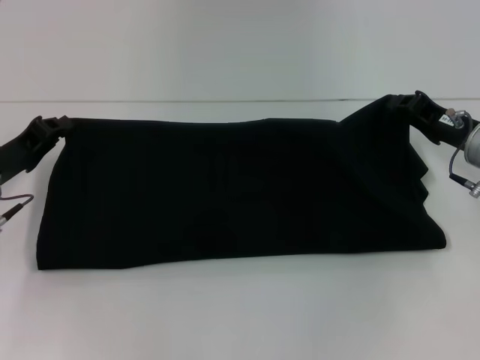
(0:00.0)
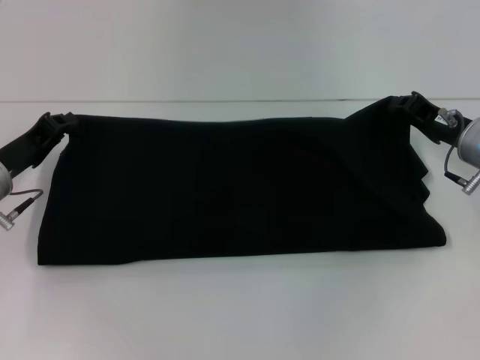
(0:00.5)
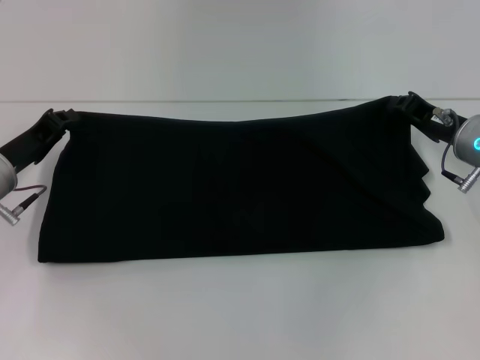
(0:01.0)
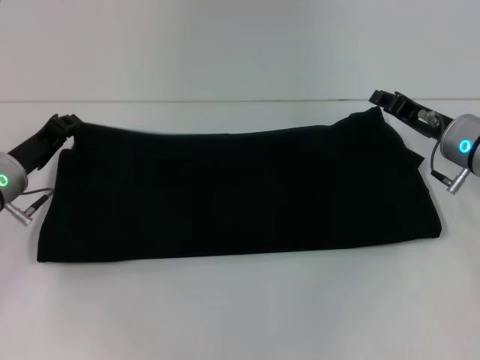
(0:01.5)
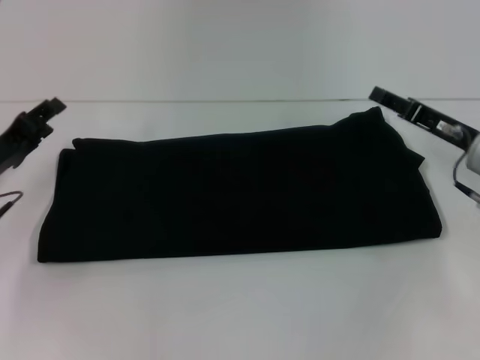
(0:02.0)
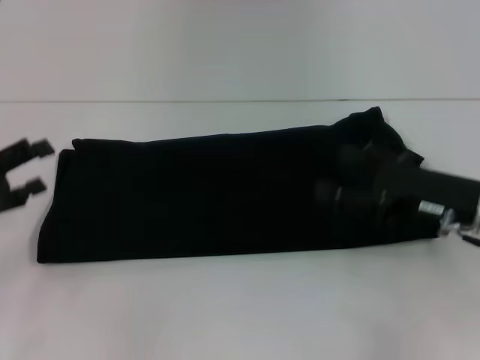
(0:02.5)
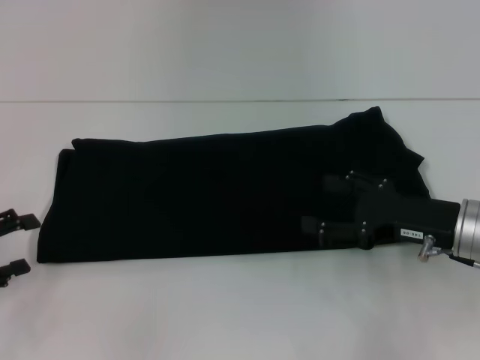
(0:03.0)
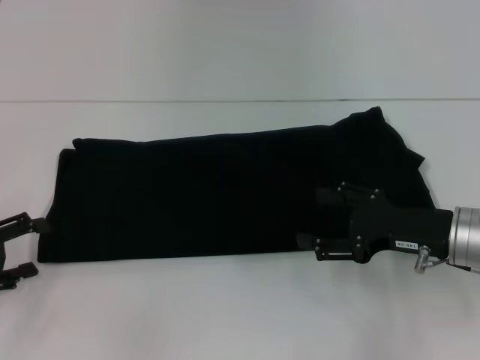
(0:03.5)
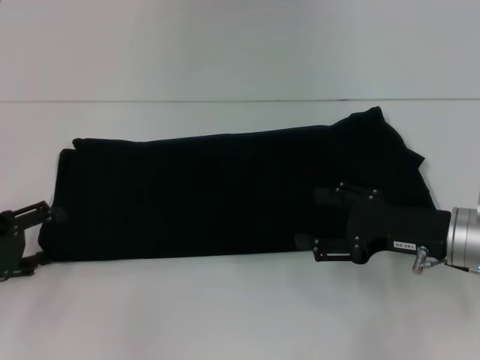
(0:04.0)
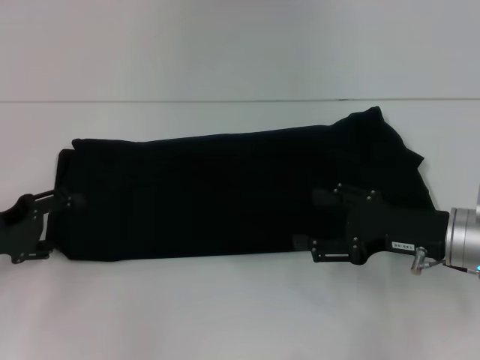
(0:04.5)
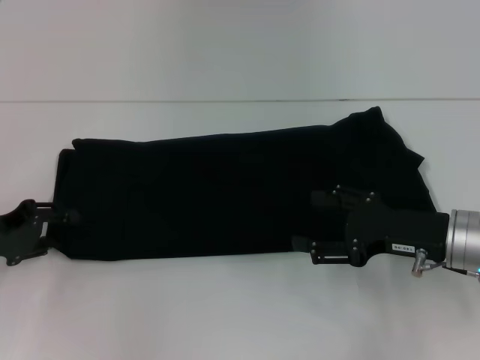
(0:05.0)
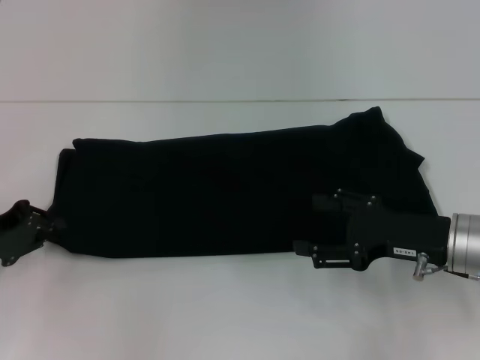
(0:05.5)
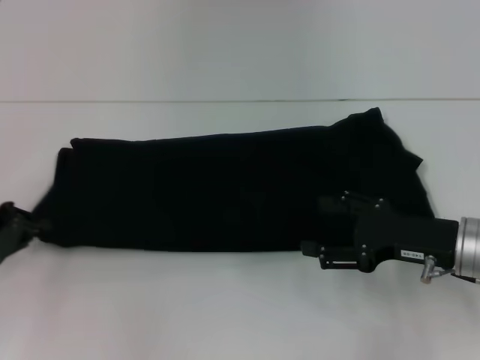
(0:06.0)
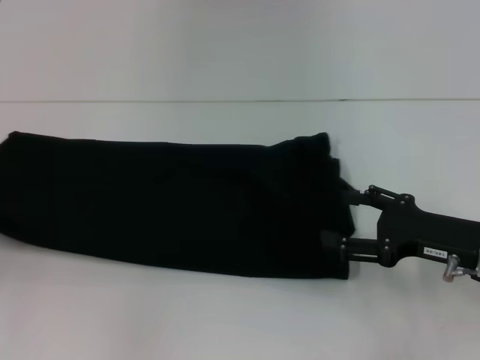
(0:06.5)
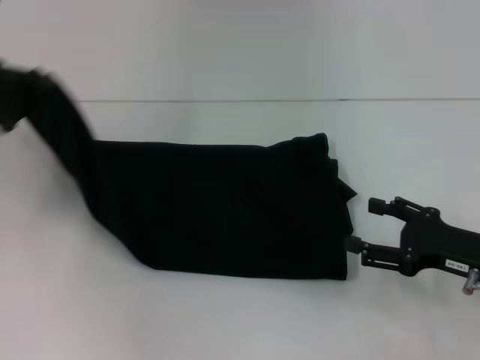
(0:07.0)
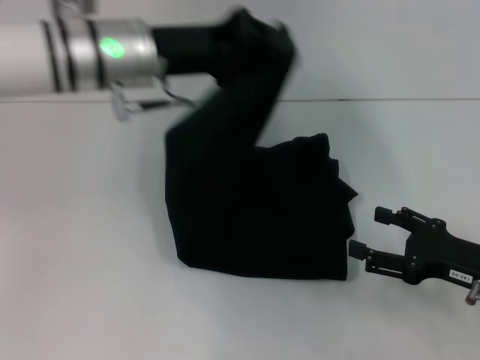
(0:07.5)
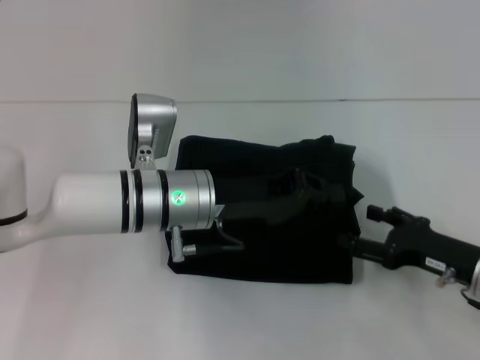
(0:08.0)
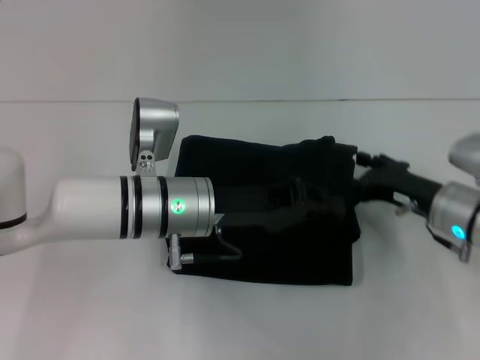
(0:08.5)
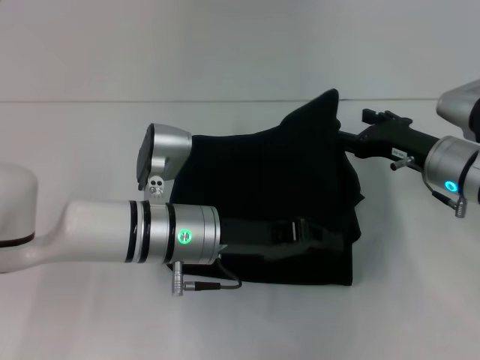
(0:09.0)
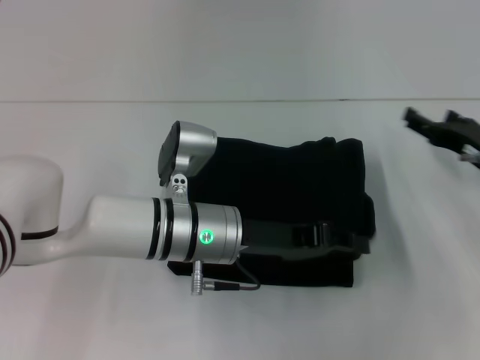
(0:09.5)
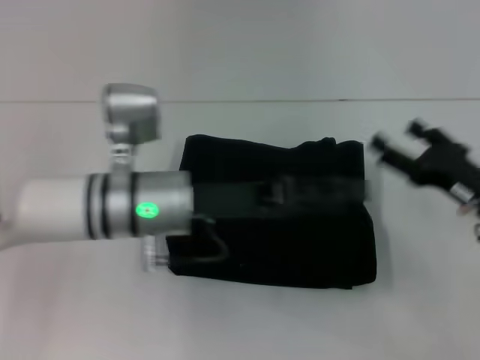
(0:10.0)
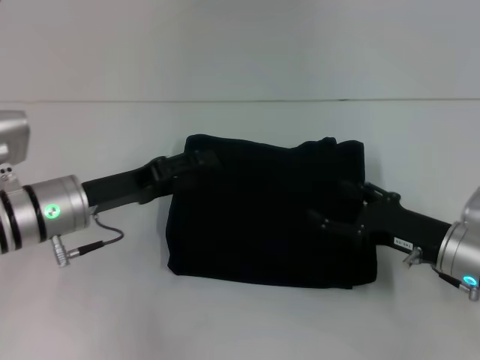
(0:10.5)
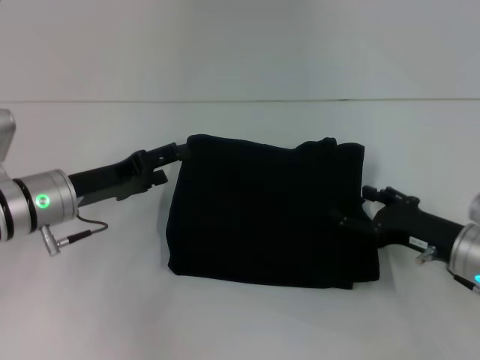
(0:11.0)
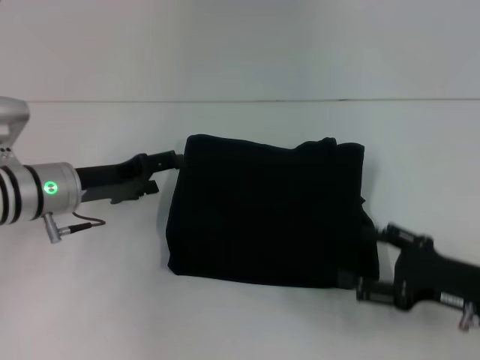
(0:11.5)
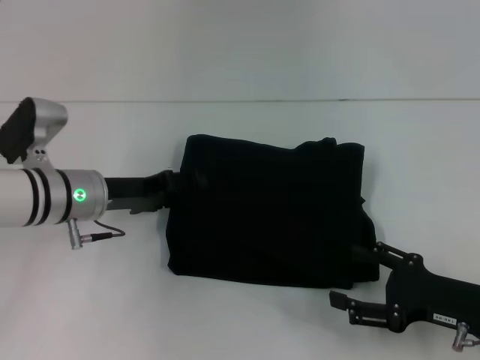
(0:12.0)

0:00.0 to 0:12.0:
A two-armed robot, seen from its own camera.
Step, 0:00.0 to 0:09.5: Fold the clothes with your left hand.
0:00.0 to 0:02.0: The right gripper opens. The left gripper opens its fingers.
0:02.0 to 0:04.0: Both grippers move backward, some 5 cm. The left gripper opens. The right gripper opens up.
0:04.0 to 0:06.0: The left gripper closes its fingers.
0:06.0 to 0:08.0: The left gripper travels to the right by approximately 25 cm. The right gripper shifts by approximately 5 cm.
0:08.0 to 0:10.0: The right gripper reaches about 10 cm forward, then returns. The left gripper opens its fingers.
0:10.0 to 0:12.0: The right gripper travels backward by roughly 5 cm; the left gripper goes about 10 cm to the left, and opens its fingers.

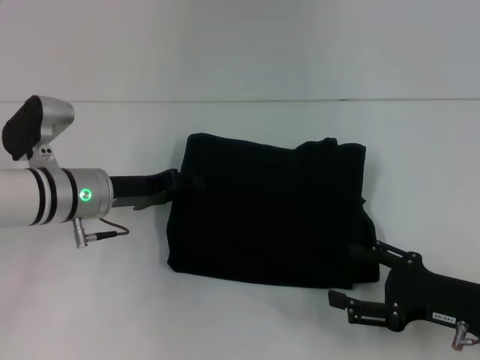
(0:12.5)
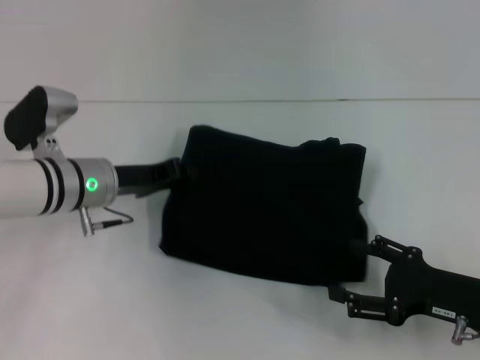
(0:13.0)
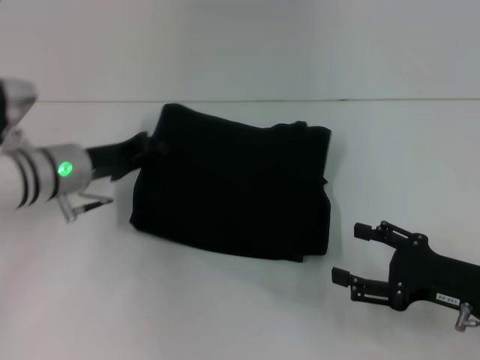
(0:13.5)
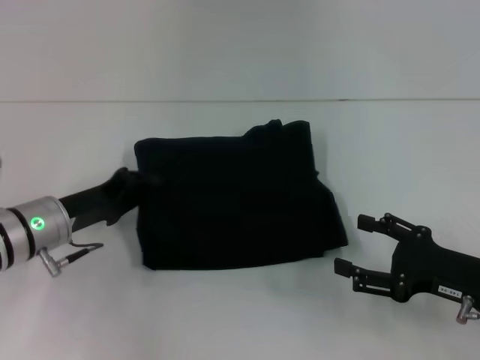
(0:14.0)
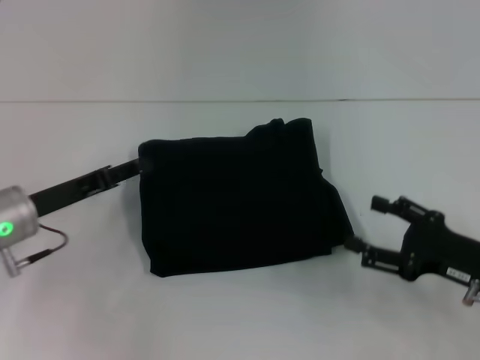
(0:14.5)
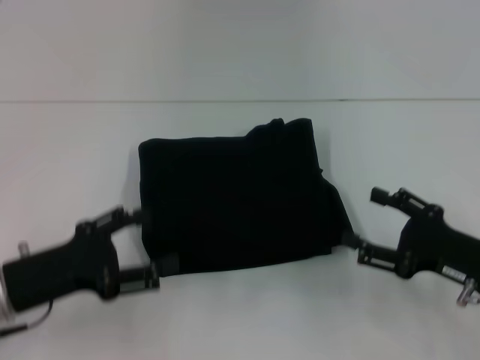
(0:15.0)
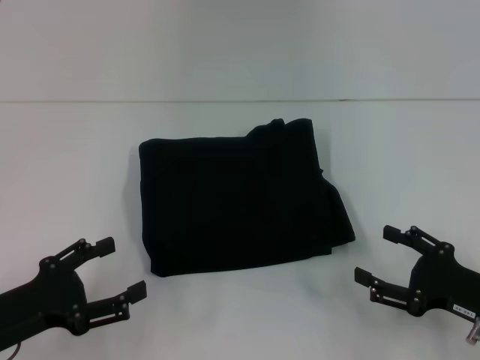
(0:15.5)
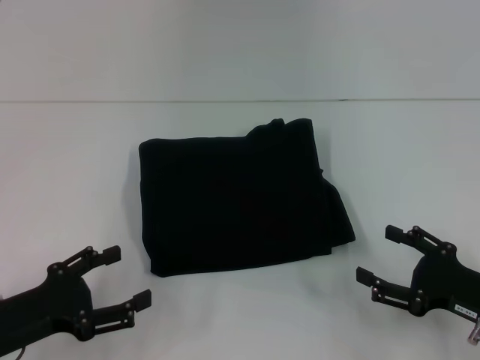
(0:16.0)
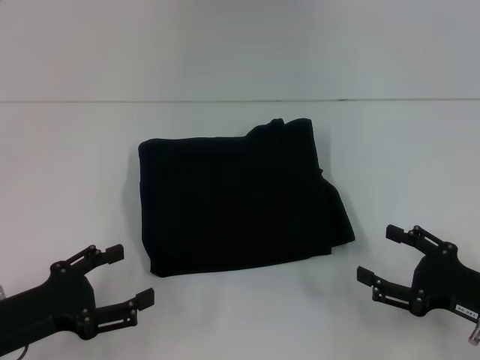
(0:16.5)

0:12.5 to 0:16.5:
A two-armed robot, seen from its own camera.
0:12.5 to 0:14.5: The left gripper shifts about 5 cm to the left.
0:14.5 to 0:16.5: The left gripper is displaced backward by about 10 cm, and opens.

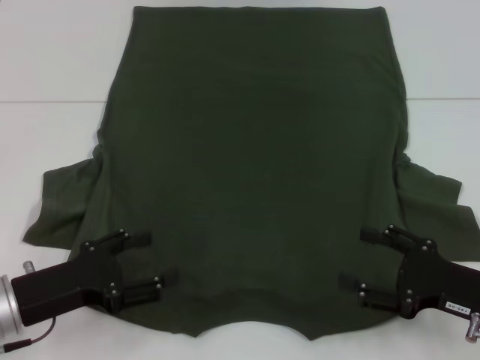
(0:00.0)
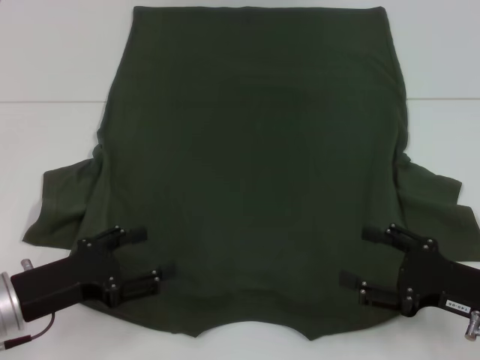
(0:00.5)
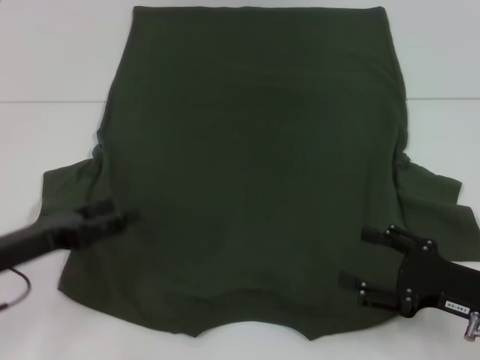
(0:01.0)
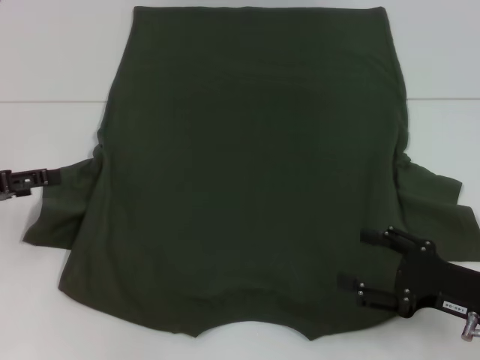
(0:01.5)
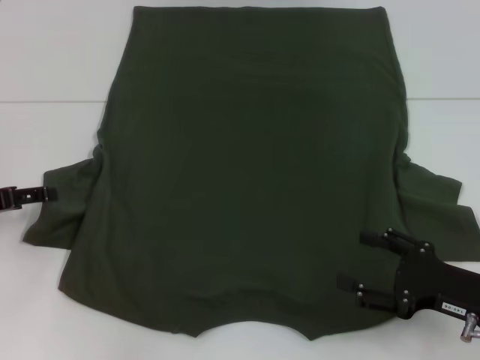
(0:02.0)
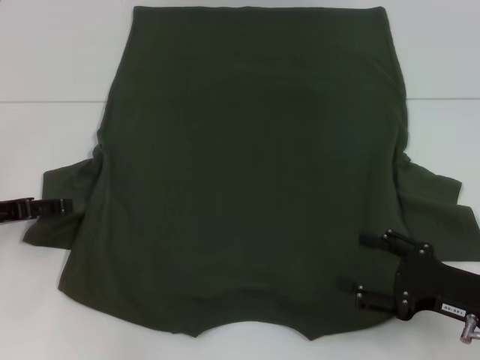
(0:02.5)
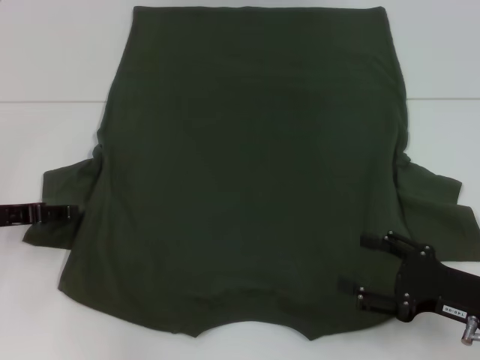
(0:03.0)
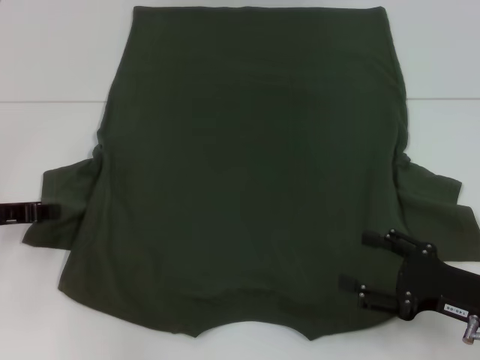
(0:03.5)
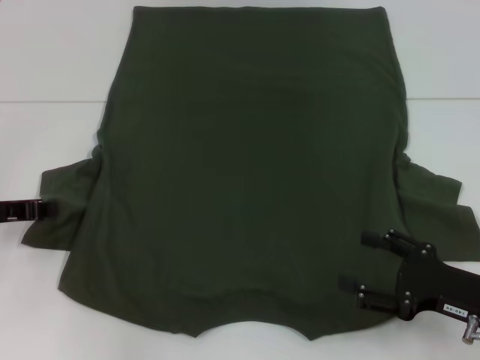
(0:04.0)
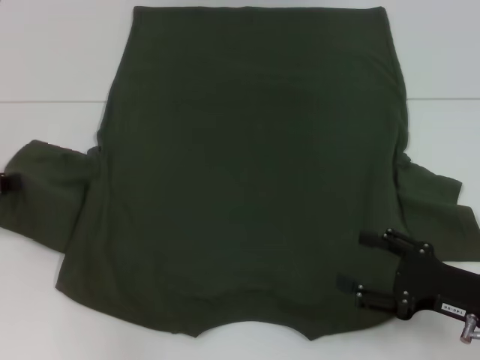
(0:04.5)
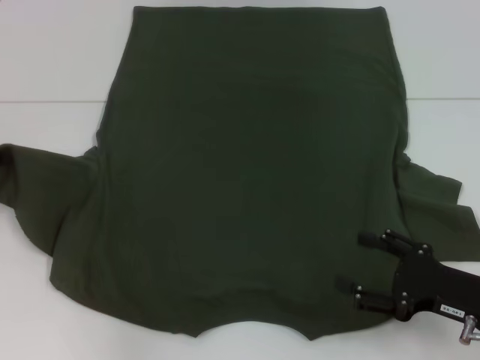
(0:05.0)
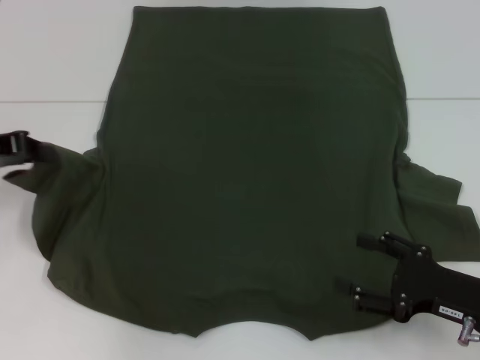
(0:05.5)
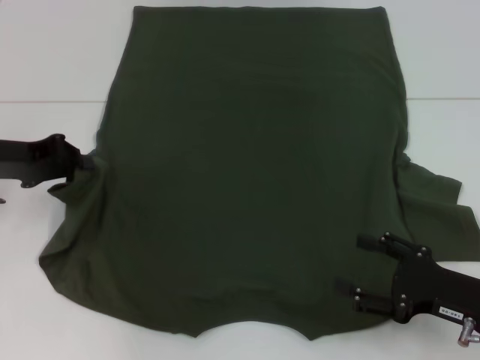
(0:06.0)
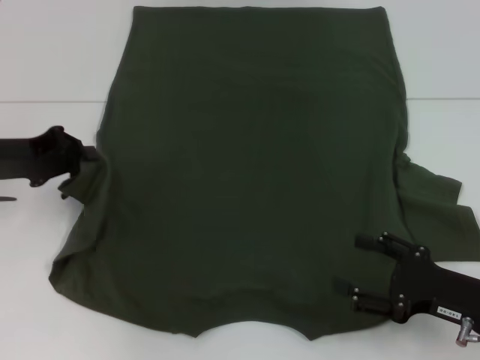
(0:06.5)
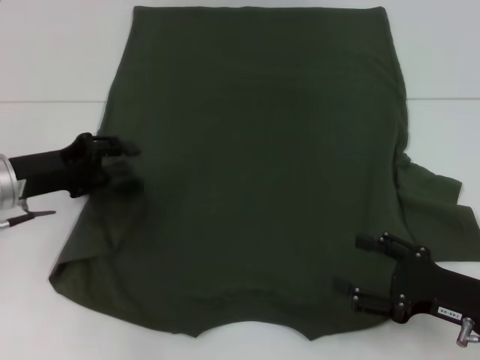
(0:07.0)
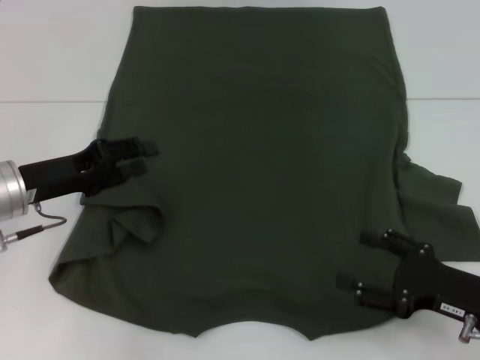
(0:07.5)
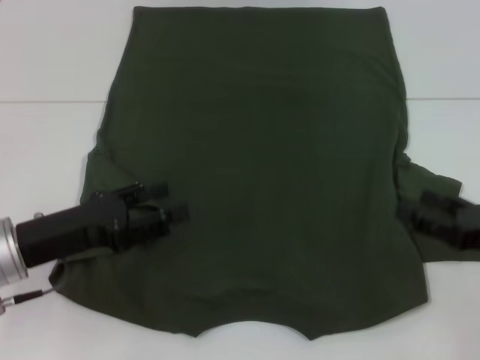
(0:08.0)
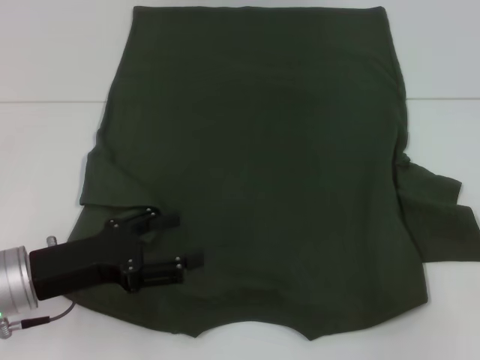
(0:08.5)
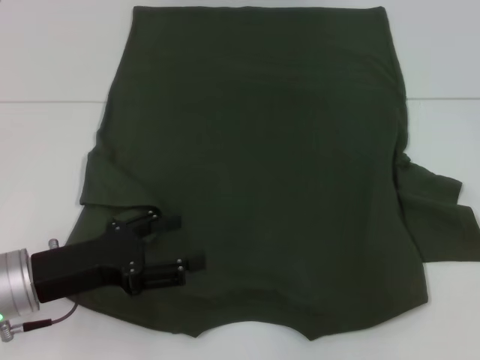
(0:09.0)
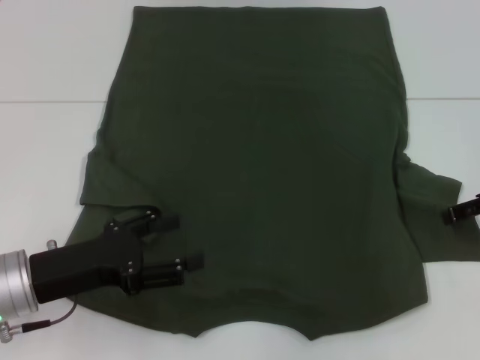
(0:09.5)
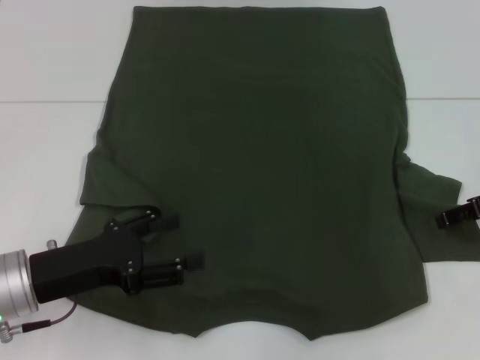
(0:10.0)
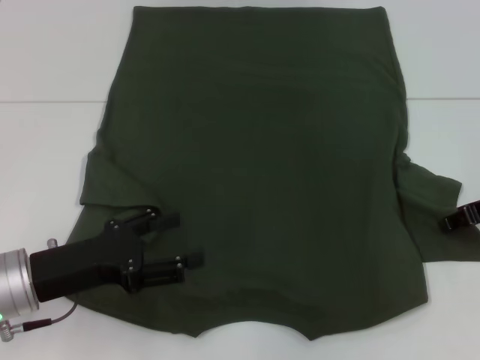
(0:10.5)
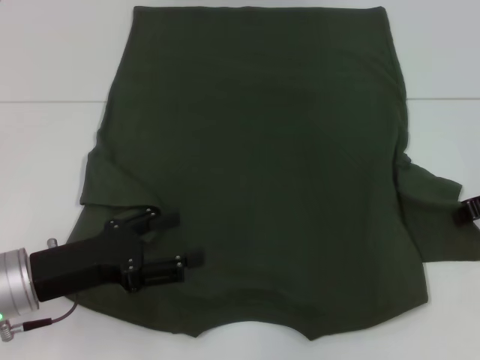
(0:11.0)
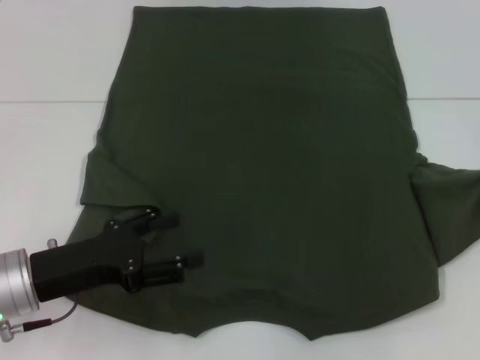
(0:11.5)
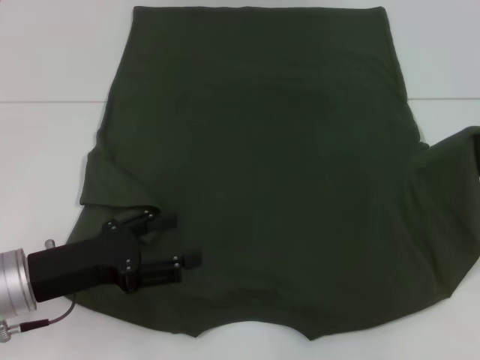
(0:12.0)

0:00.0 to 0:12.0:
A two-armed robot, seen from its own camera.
Step, 0:00.0 to 0:07.5: Fold the bottom left sleeve with your left hand.
0:00.0 to 0:02.0: The left gripper moves to the left and forward, about 15 cm.
0:02.0 to 0:04.0: The left gripper closes.
0:04.0 to 0:06.0: The left gripper travels upward by approximately 5 cm.
0:06.0 to 0:08.0: The left gripper travels backward, to the right and downward by approximately 10 cm, and opens its fingers. The right gripper changes place by about 5 cm.
0:08.0 to 0:10.0: The right gripper is displaced forward and upward by approximately 15 cm.
0:10.0 to 0:12.0: The right gripper moves upward, about 5 cm, and closes up.
